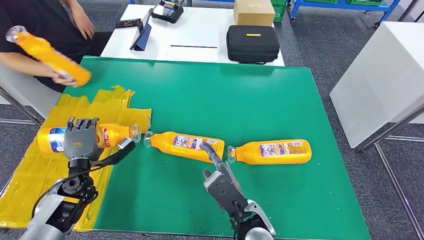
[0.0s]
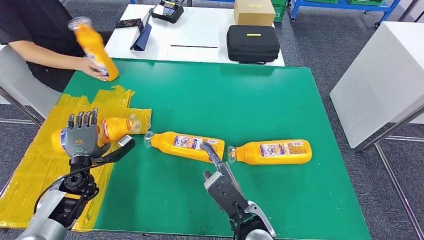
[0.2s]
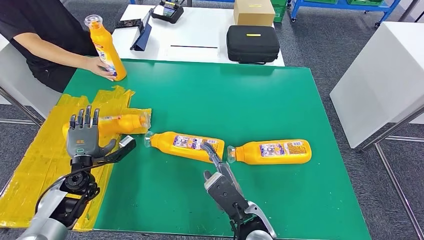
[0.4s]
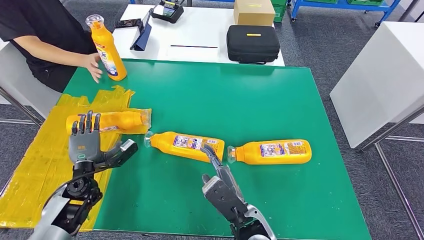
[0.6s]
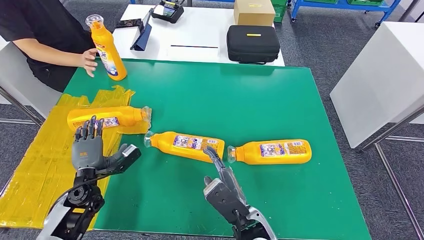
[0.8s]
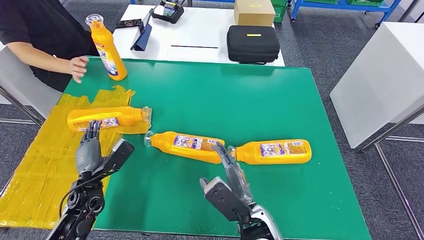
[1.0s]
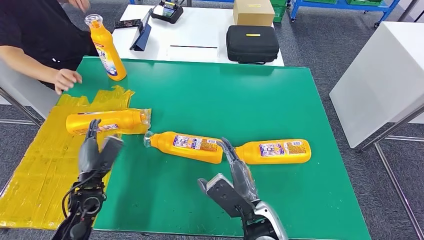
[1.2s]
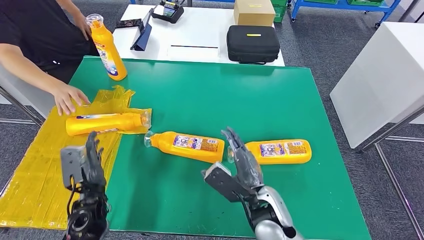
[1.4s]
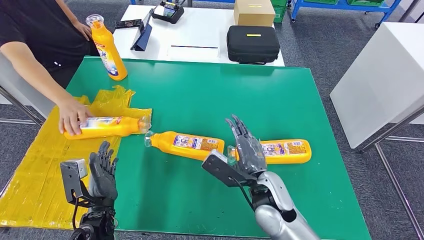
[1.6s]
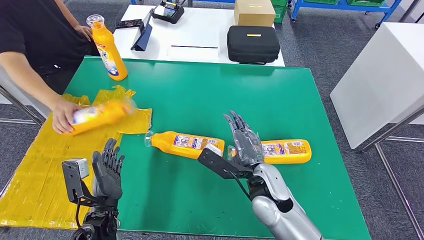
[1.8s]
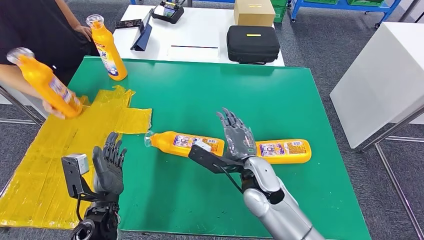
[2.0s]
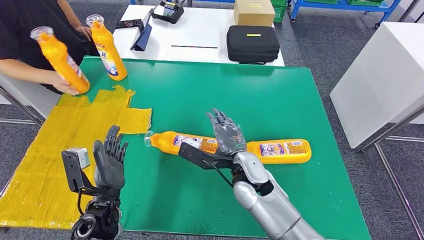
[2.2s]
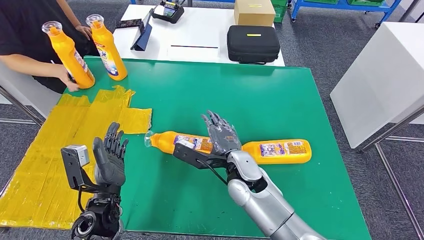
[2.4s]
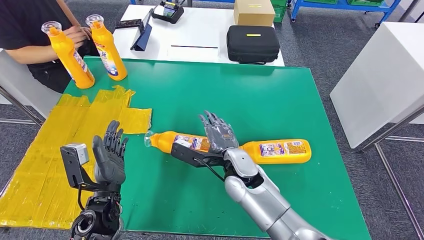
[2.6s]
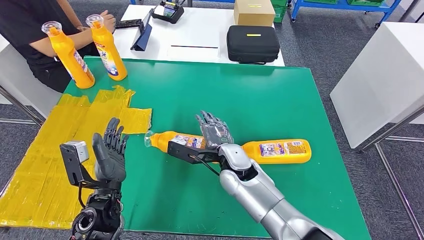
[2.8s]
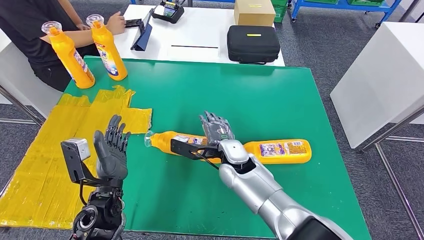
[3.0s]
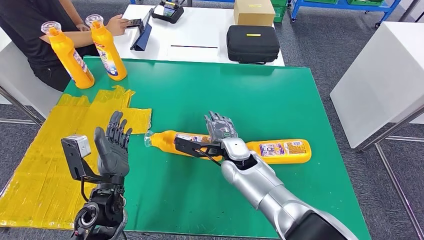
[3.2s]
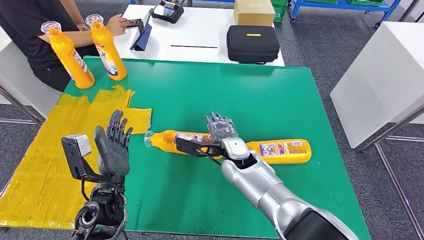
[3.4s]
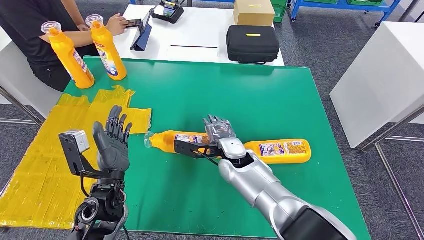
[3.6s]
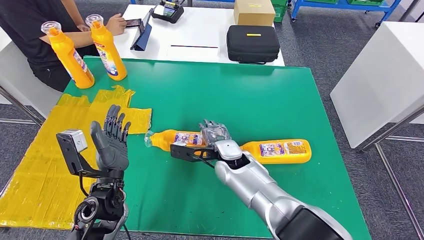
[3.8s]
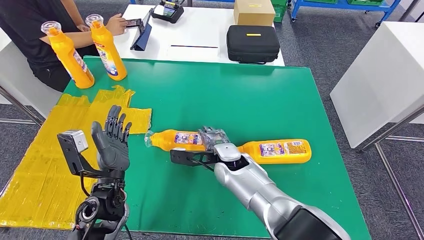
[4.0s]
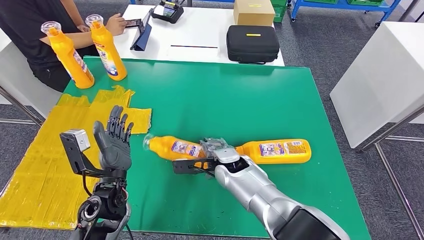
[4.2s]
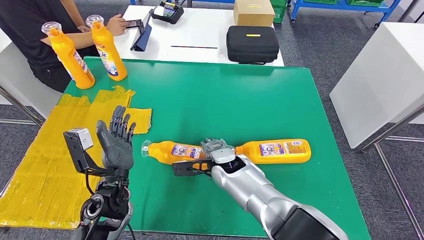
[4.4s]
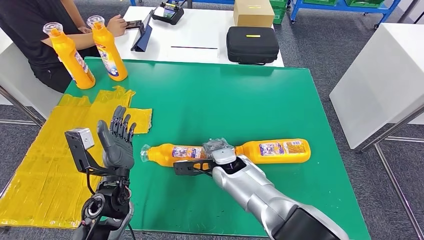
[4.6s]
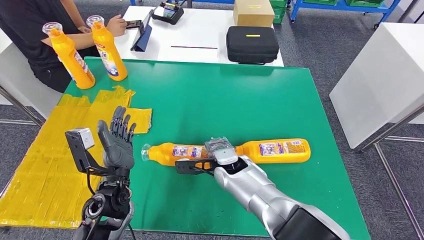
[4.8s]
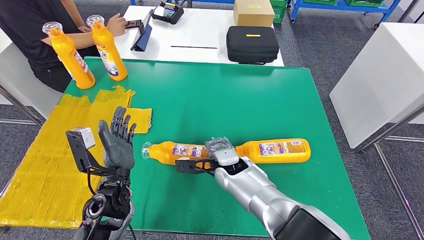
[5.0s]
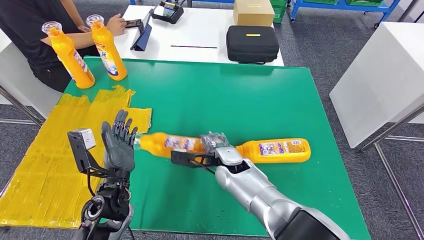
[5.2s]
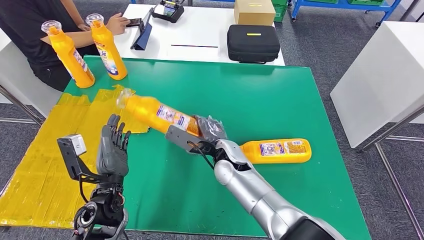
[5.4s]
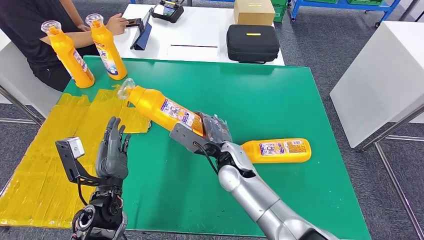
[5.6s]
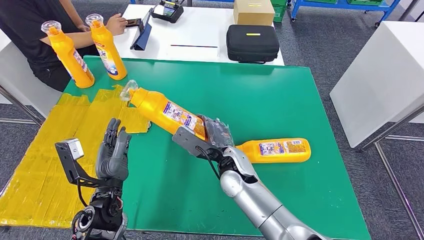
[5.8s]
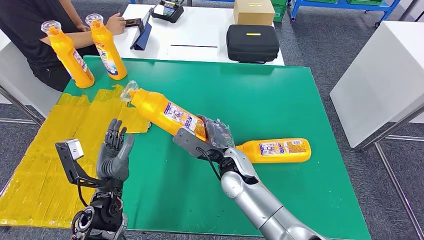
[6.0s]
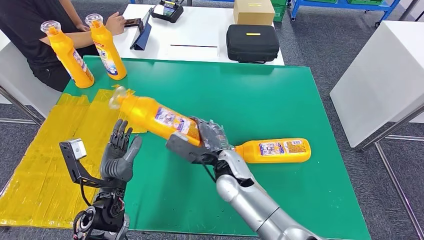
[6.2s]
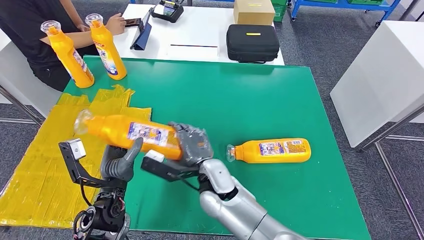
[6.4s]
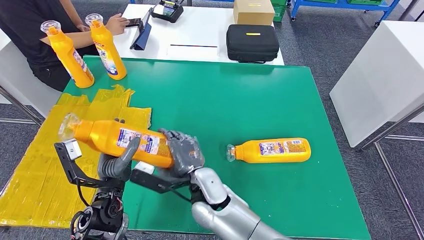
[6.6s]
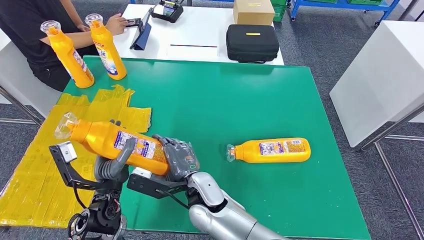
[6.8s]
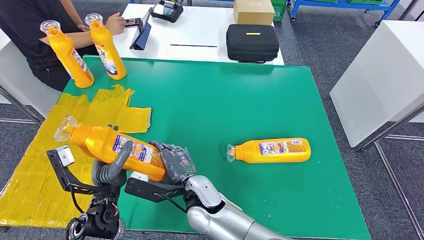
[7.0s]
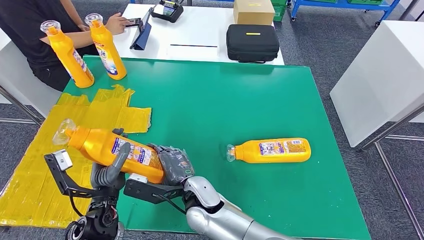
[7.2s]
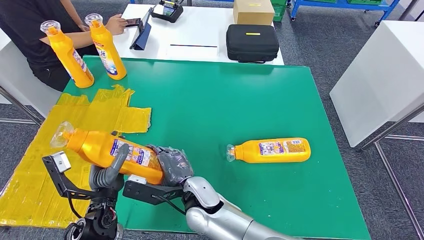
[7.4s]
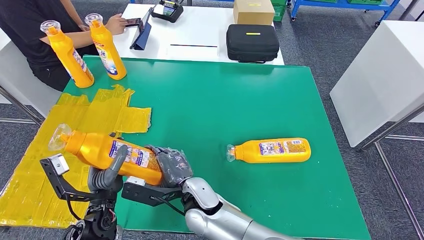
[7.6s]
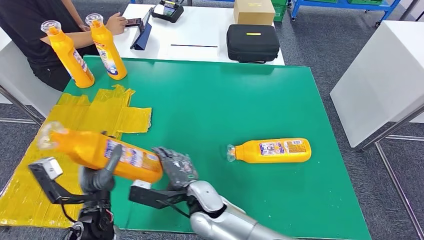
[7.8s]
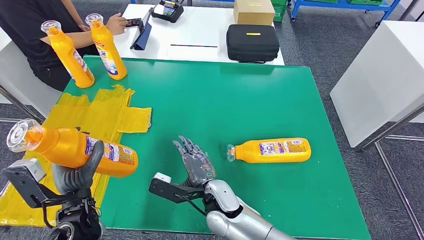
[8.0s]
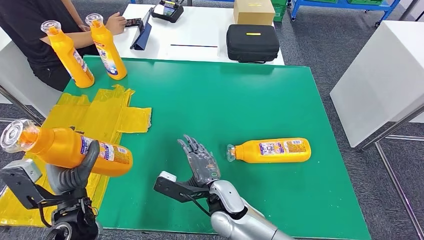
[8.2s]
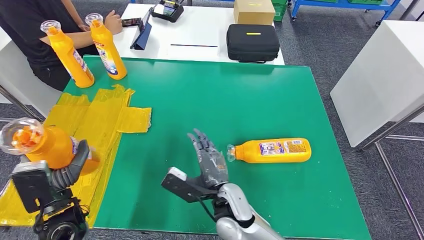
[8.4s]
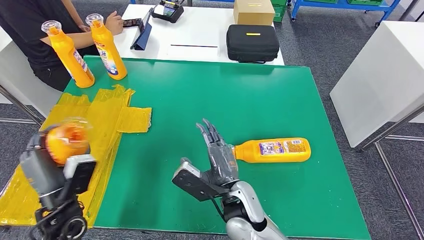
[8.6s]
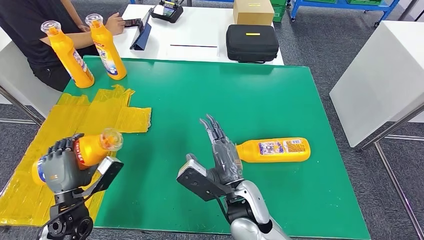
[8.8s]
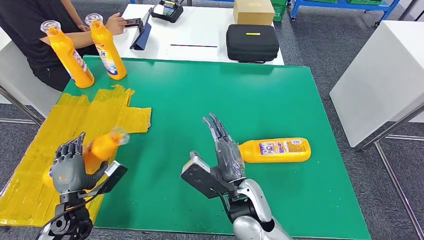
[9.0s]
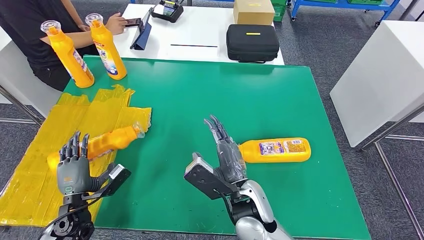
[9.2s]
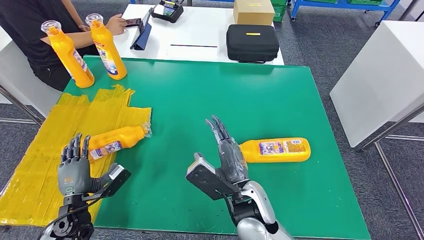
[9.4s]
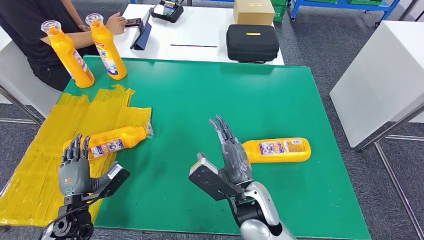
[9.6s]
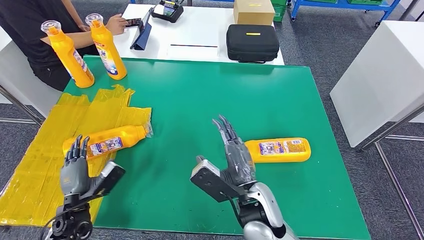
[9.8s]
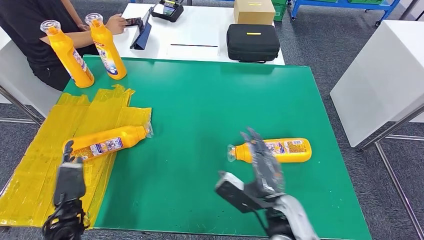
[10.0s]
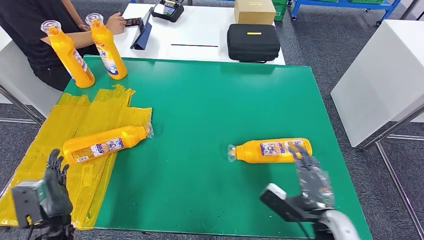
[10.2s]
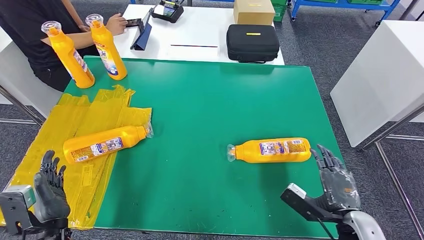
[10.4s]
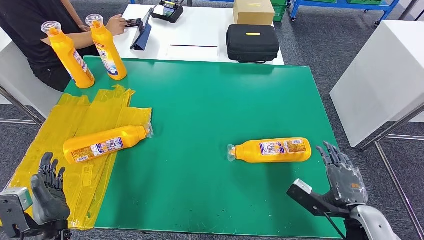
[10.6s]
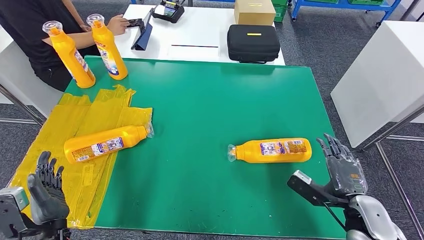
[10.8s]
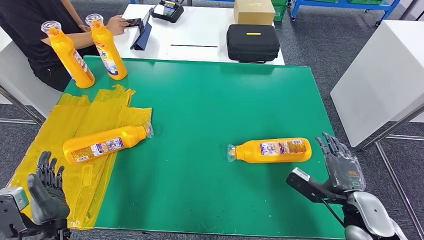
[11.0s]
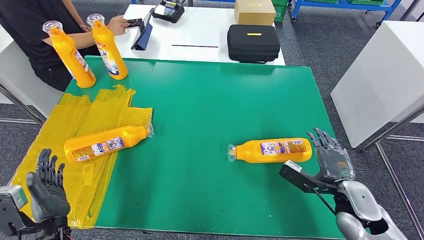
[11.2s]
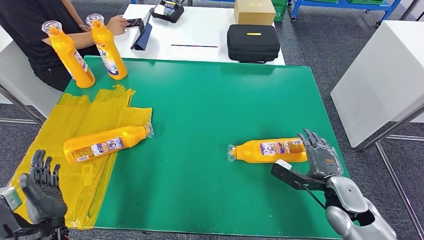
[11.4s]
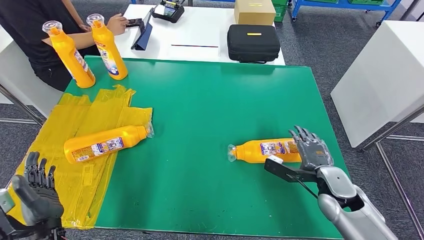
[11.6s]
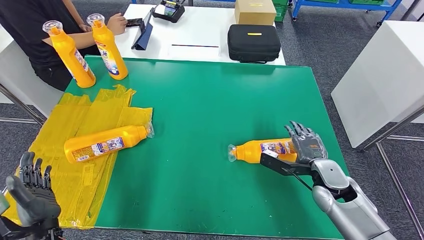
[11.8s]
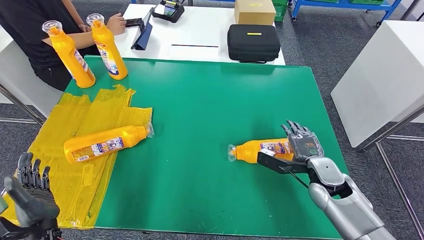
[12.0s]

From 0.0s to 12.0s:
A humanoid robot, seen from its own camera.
Step, from 1.0s to 7.0s: Pick up the fast-moving consumer goods bottle from the table.
Step, from 7.2s to 10.2s: Flip the fast-moving consumer goods bottle to the front side.
From 1.6s to 3.0s: The left hand changes place by about 5 cm; the right hand is displaced forward and to the left by approximately 10 cm.
From 6.0s to 7.6s: The right hand shifts roughly 10 cm to the left and backward.
From 7.6s to 9.0s: The right hand goes roughly 10 cm to the right. Meanwhile the left hand travels to the left and downward by some 15 cm.
From 9.0s to 10.4s: The right hand heads to the right, covering some 25 cm, while the left hand moves backward, roughly 10 cm.
From 10.4s to 12.0s: The right hand travels forward by roughly 15 cm.

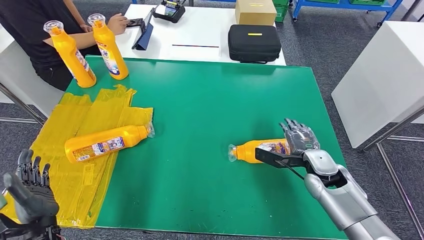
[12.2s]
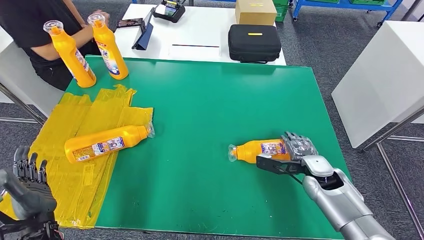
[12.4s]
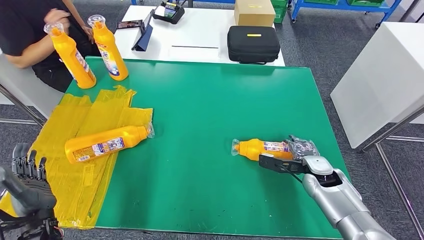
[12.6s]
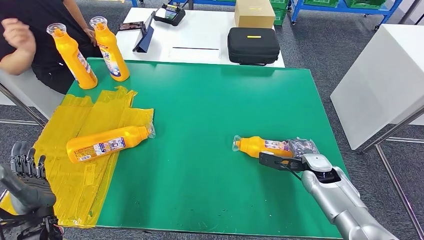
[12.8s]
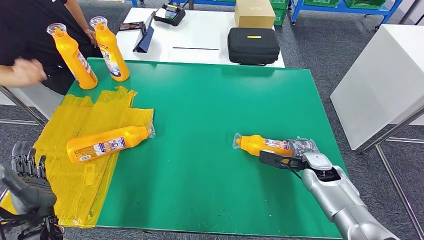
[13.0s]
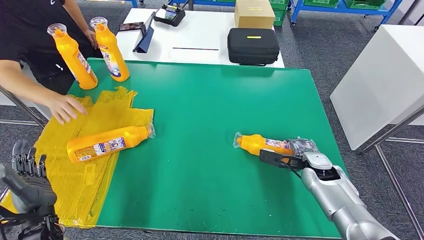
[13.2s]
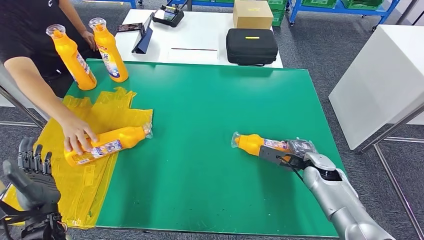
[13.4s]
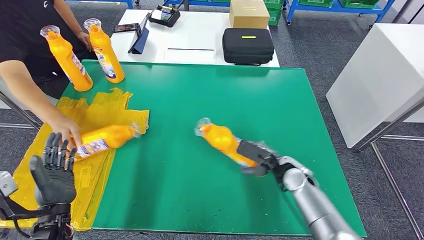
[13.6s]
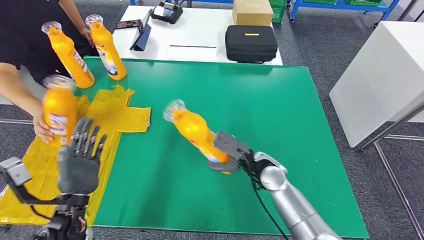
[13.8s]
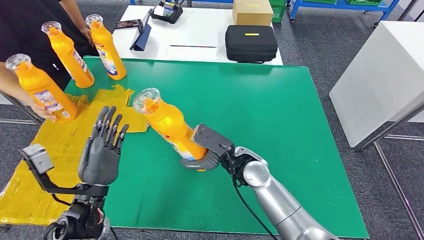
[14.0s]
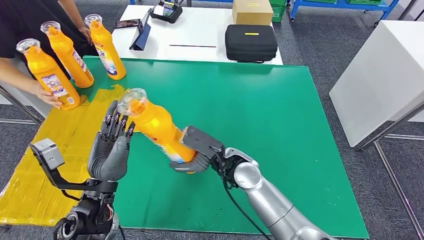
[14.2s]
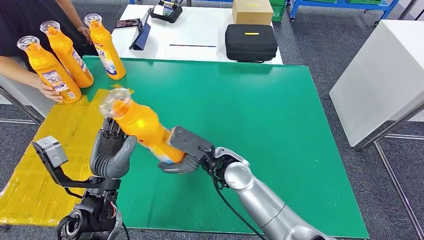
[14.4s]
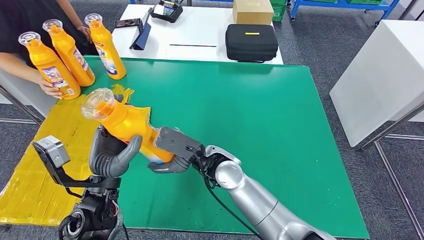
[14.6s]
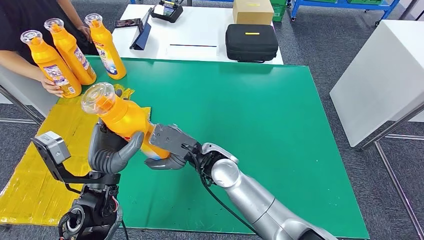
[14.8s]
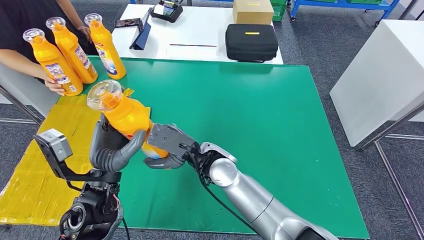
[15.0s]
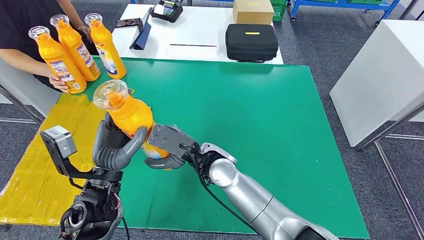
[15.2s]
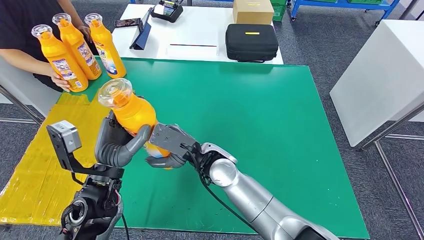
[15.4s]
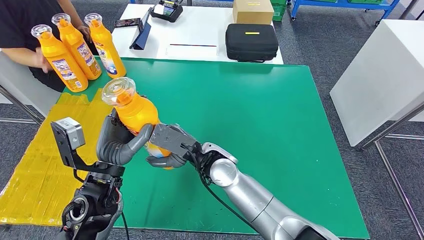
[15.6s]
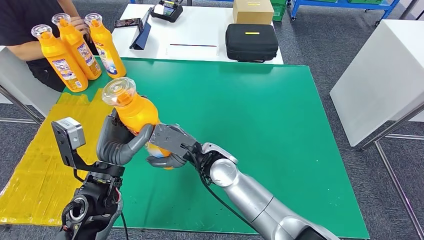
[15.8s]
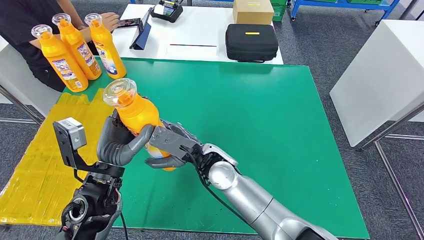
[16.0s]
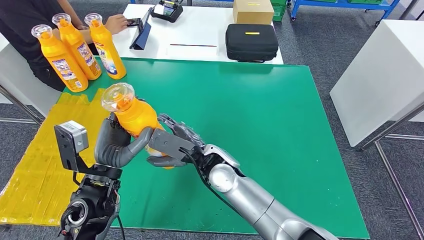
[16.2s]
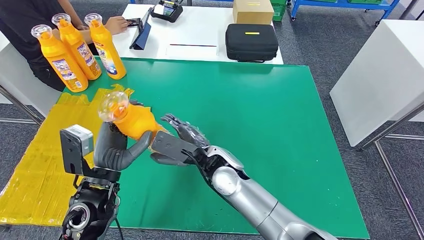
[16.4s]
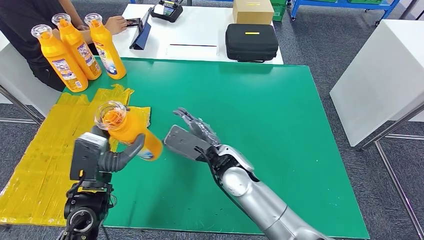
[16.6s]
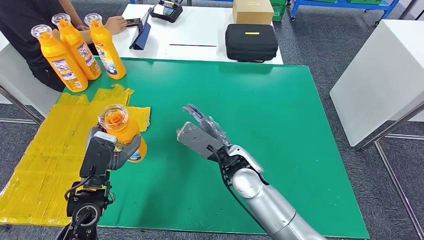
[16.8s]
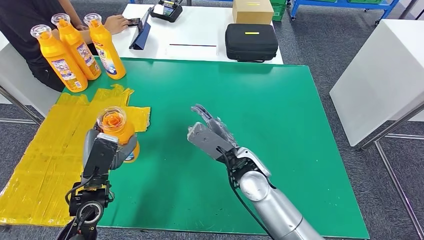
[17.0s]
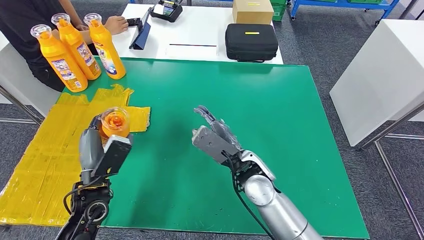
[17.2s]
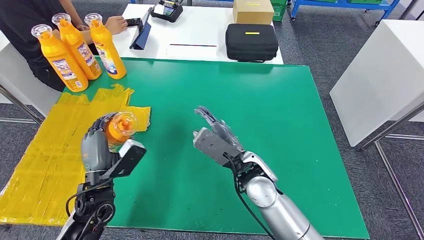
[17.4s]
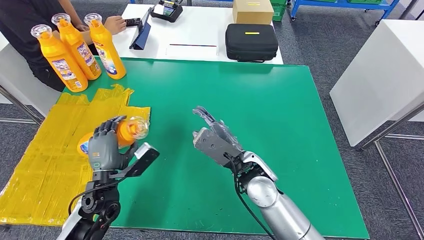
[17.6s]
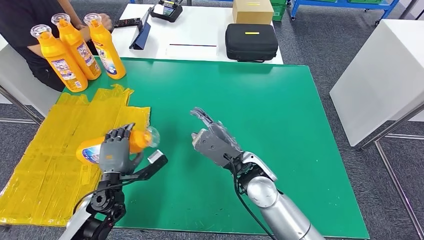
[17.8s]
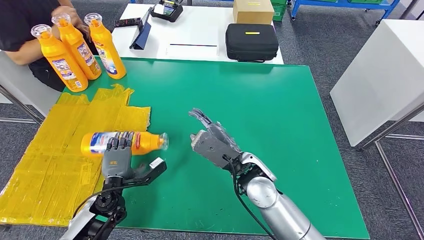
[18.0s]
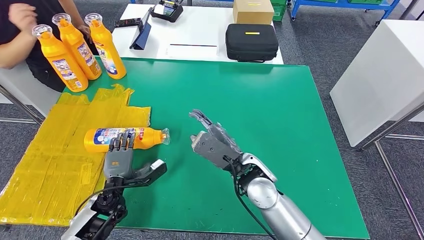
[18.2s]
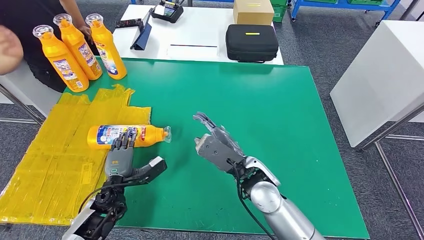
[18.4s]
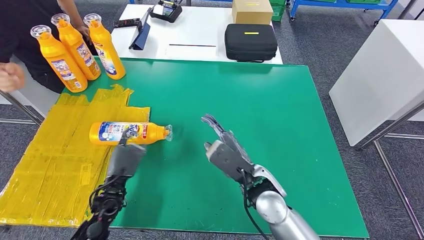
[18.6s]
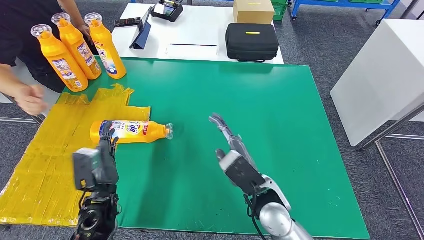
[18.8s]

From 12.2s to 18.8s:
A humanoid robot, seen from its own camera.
Step, from 12.2s to 15.2s: Pick up the fast-moving consumer goods bottle from the table.
Step, from 15.4s to 18.8s: Flip the fast-moving consumer goods bottle to the front side.
From 15.4s to 17.2s: The left hand is displaced downward and to the left by some 10 cm. The right hand is displaced to the right by some 10 cm.
From 17.2s to 18.8s: The right hand is displaced backward by about 5 cm.
